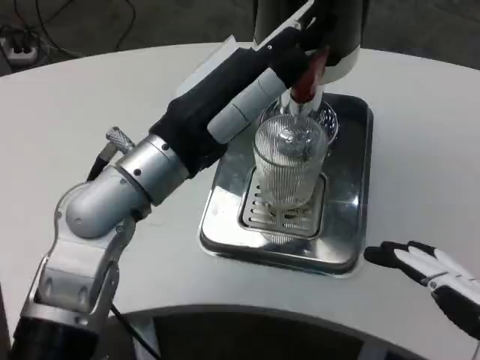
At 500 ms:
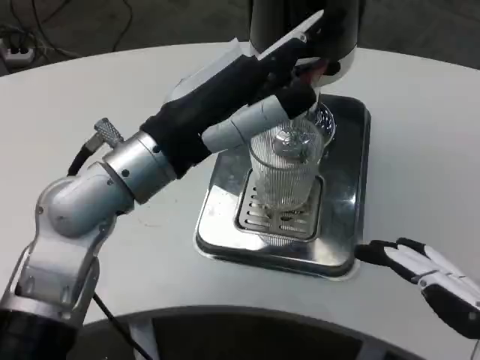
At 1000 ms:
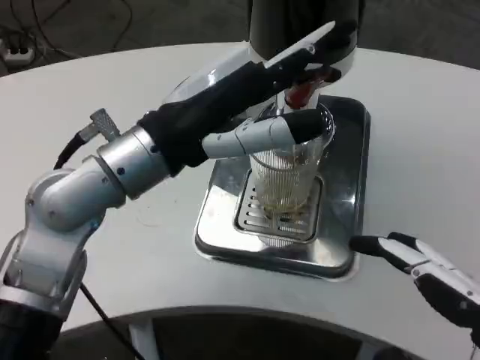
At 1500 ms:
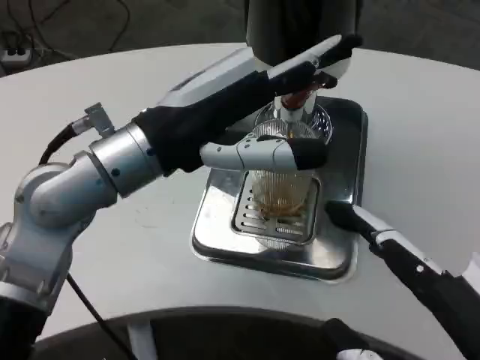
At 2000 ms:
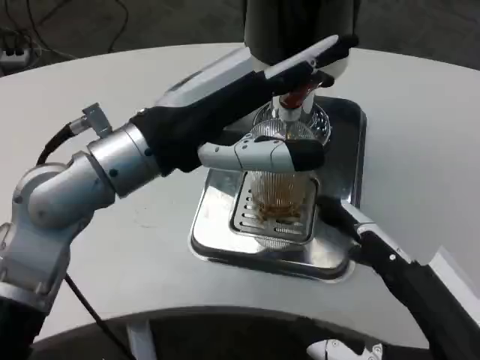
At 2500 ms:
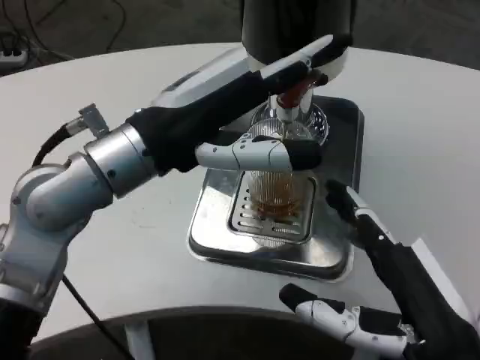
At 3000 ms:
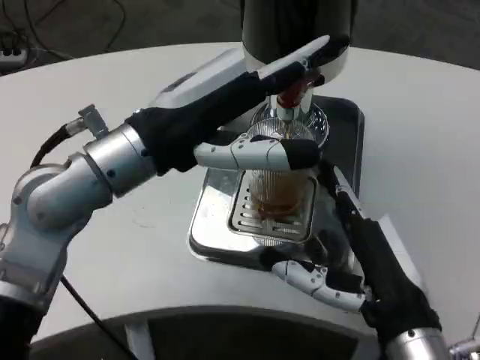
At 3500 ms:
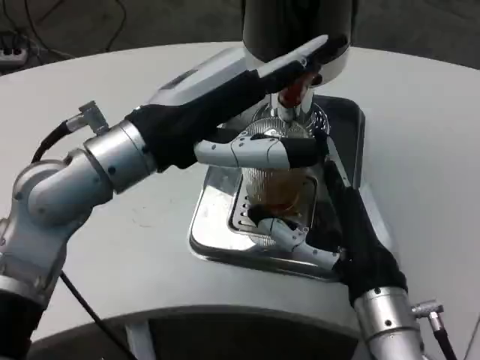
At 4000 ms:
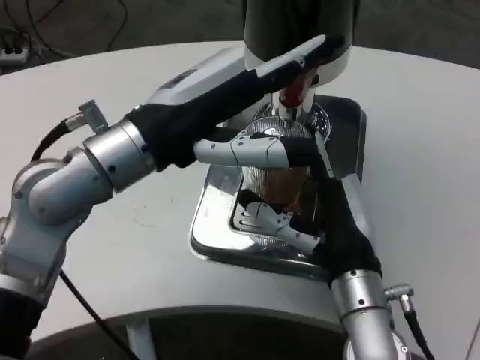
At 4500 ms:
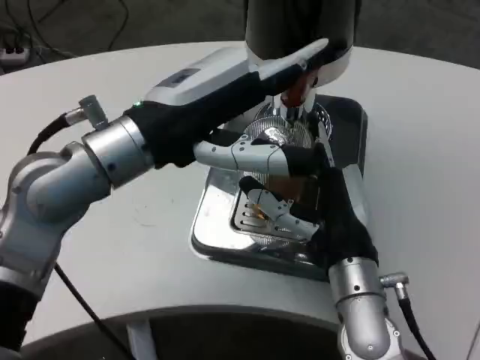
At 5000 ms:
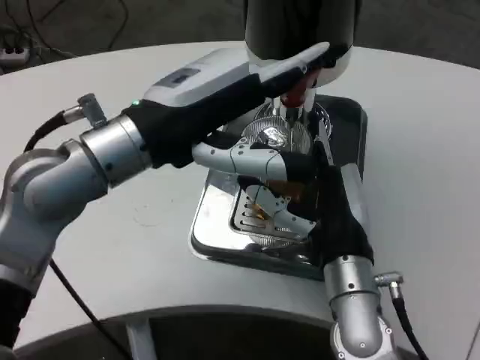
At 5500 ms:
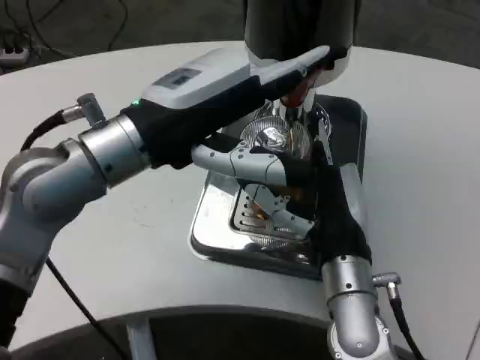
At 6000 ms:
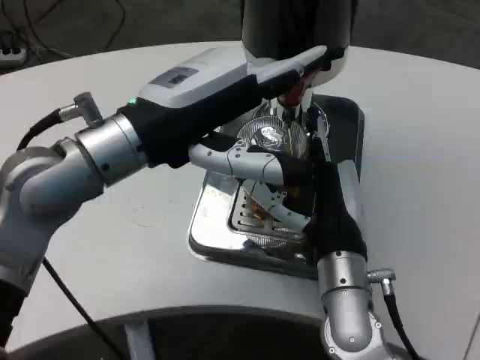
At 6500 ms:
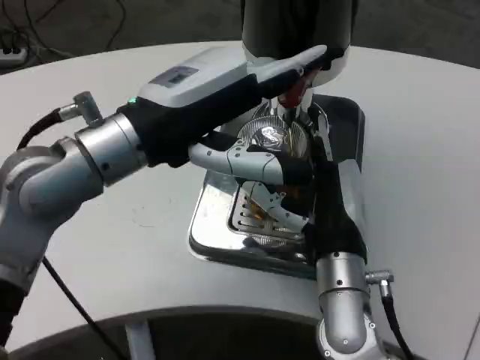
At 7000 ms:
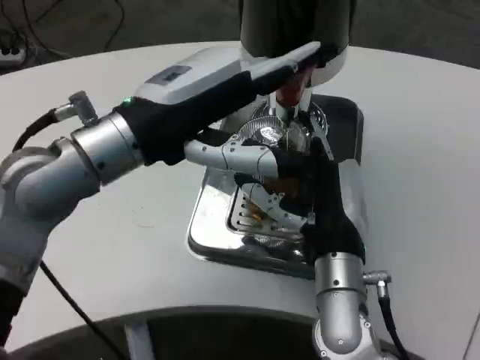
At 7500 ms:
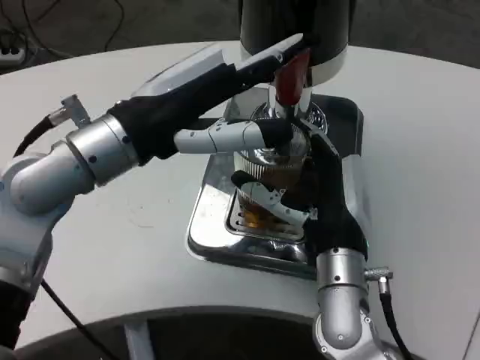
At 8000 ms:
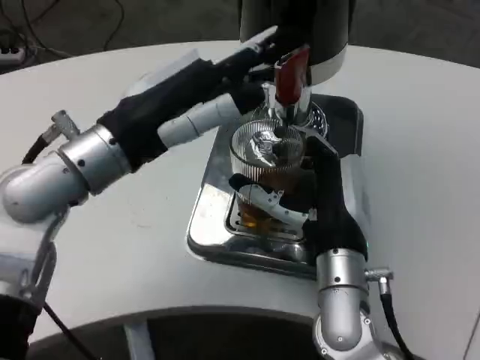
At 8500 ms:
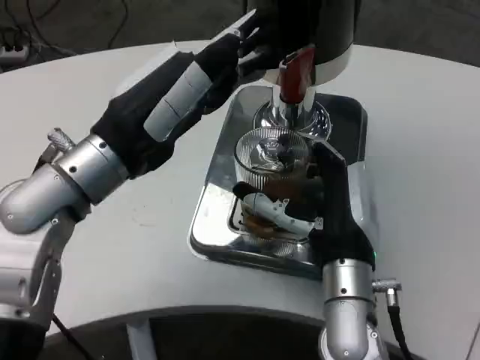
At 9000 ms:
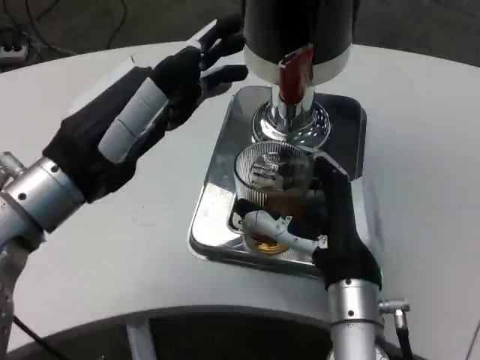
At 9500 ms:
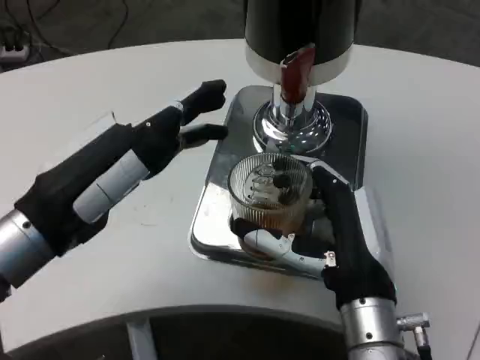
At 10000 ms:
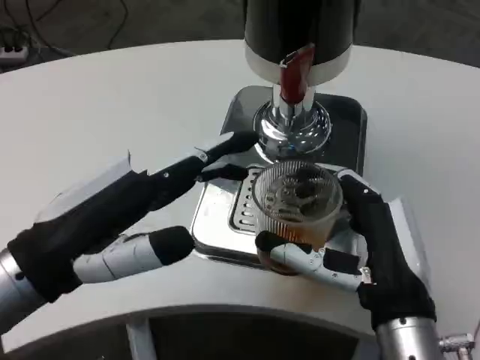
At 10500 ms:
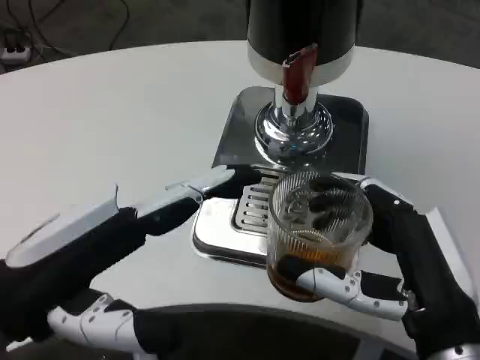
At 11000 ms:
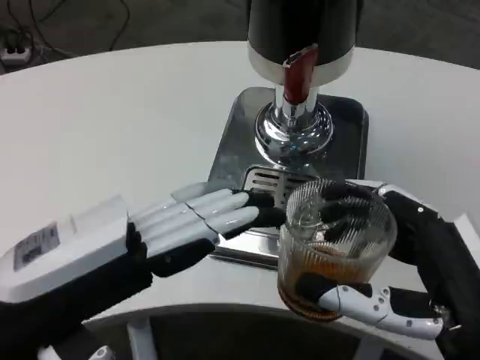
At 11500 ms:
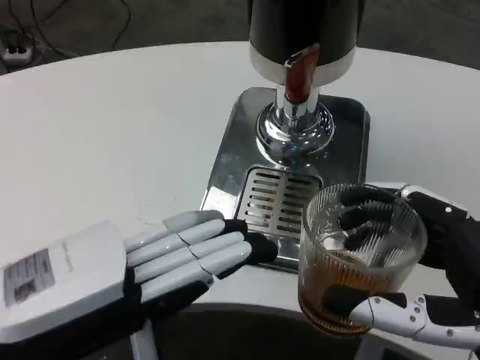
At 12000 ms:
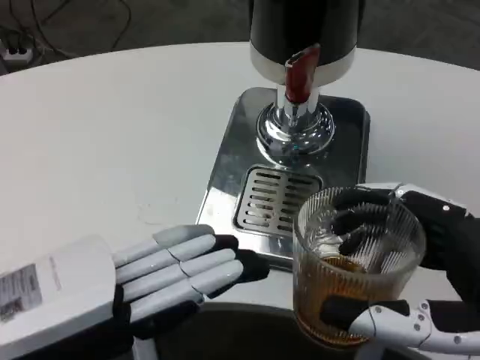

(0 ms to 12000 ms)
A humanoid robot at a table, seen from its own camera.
Task of the whole recording: Grasp the cup under the faucet to collect the drink, then remove the cup.
0 ms - 2000 ms: The right hand moves forward and to the left, some 10 cm.
2000 ms - 4000 ms: The right hand shifts about 20 cm forward and to the left.
8000 ms - 10000 ms: The two hands go about 10 cm backward.
10000 ms - 12000 ms: The left hand shifts about 5 cm backward; the right hand travels backward, to the right and upward by roughly 15 cm.

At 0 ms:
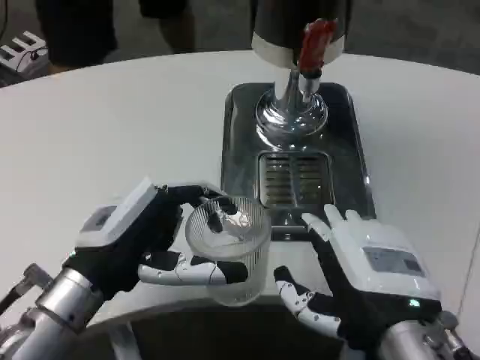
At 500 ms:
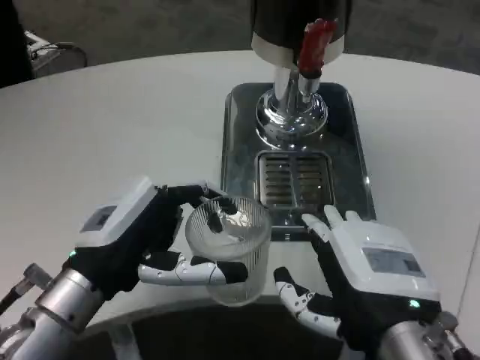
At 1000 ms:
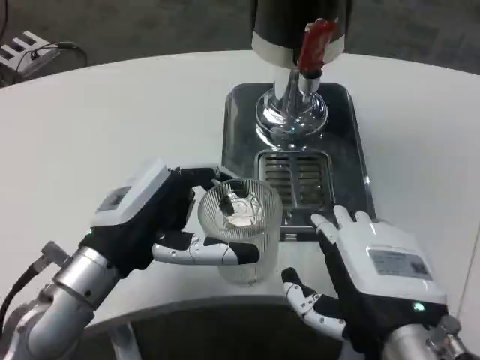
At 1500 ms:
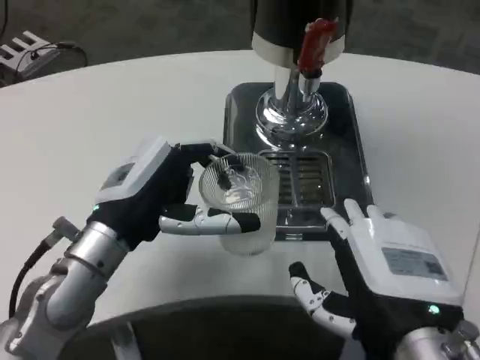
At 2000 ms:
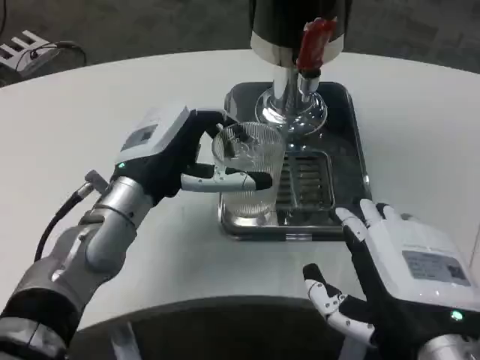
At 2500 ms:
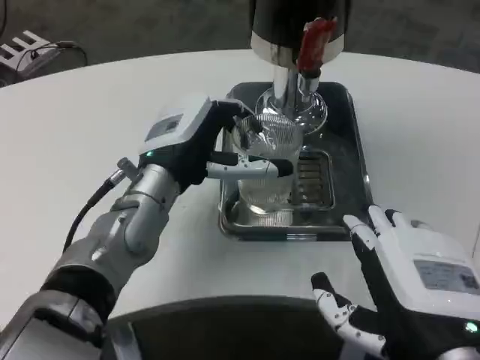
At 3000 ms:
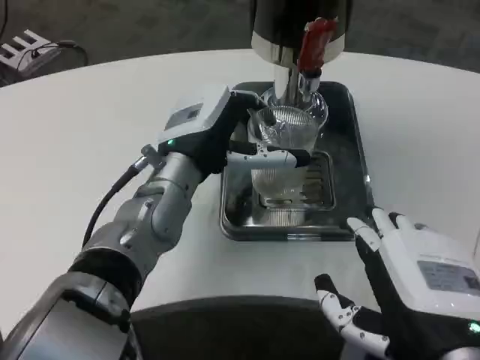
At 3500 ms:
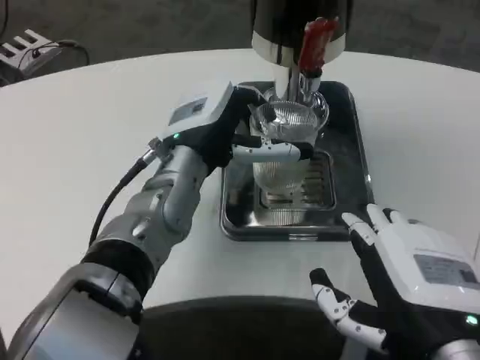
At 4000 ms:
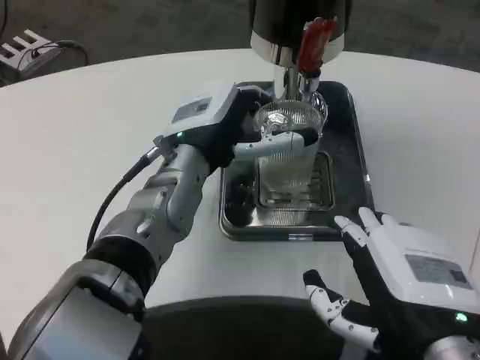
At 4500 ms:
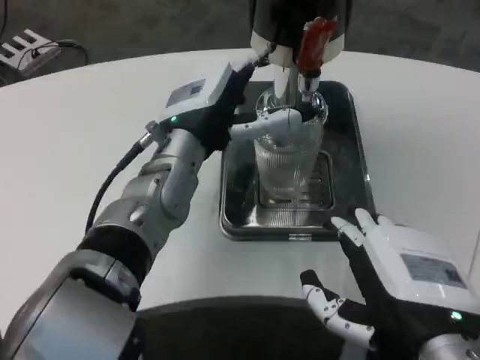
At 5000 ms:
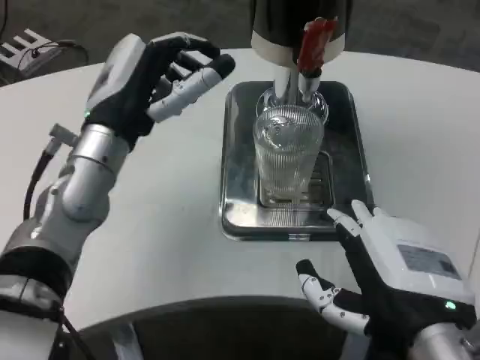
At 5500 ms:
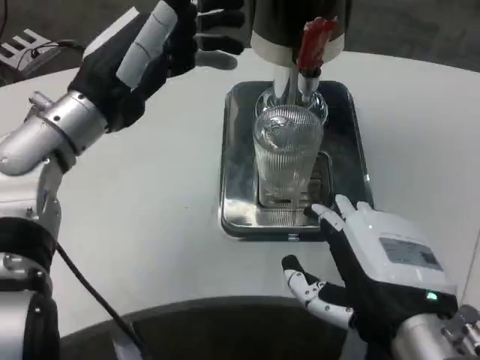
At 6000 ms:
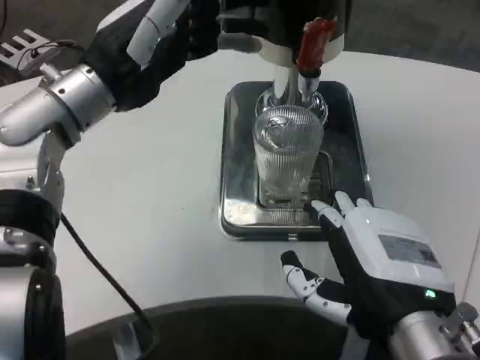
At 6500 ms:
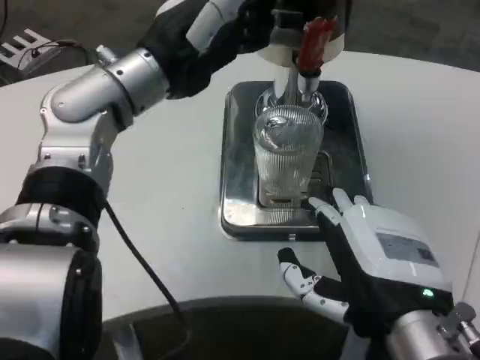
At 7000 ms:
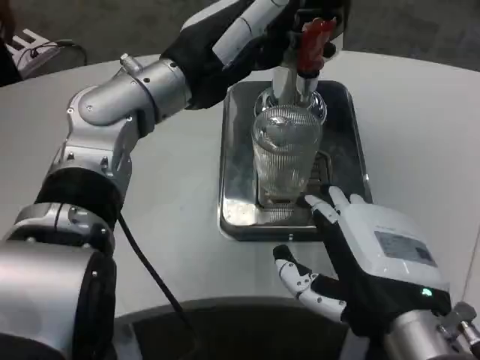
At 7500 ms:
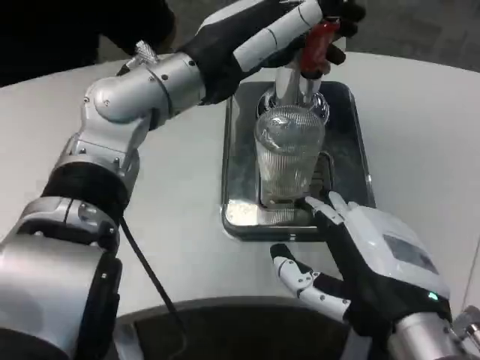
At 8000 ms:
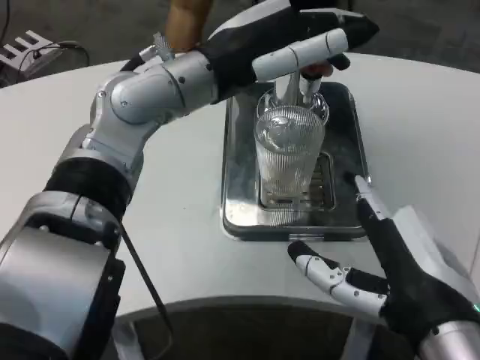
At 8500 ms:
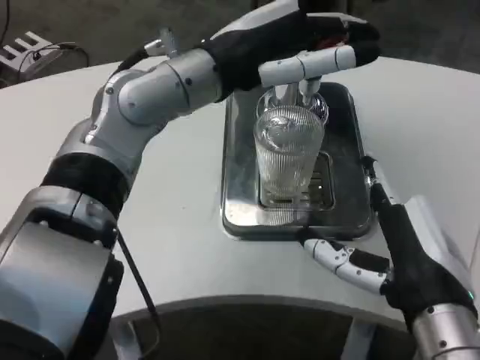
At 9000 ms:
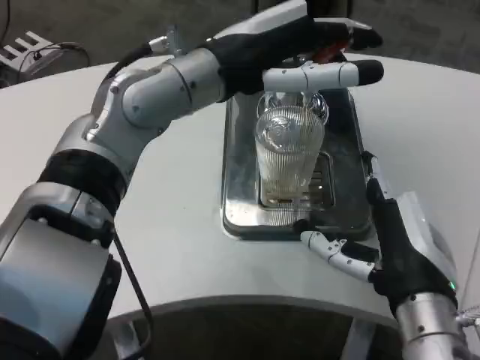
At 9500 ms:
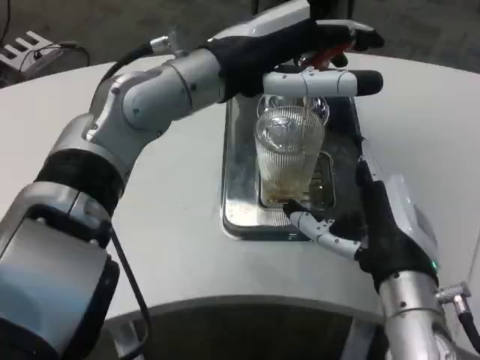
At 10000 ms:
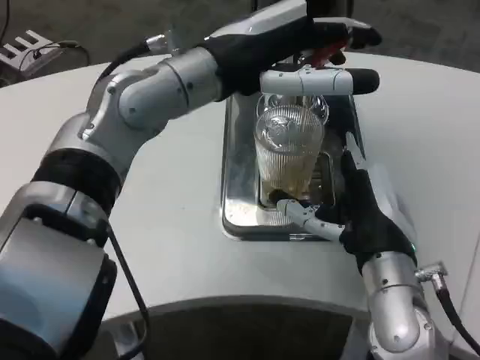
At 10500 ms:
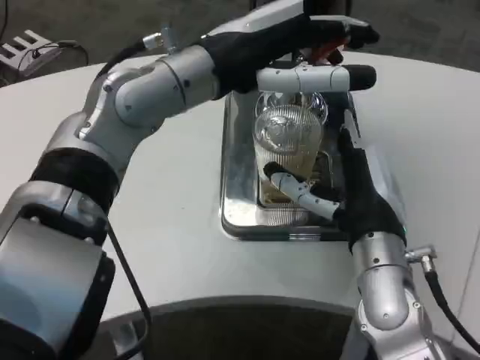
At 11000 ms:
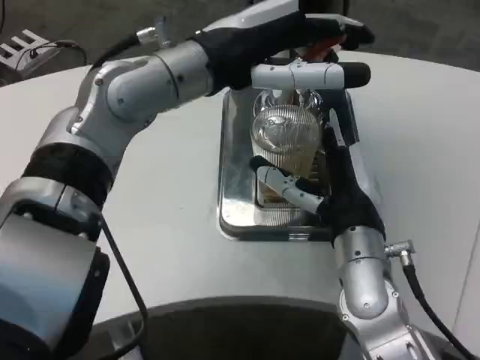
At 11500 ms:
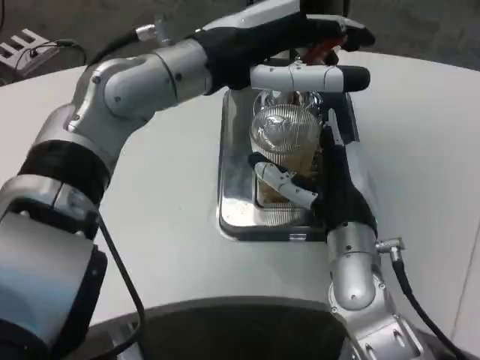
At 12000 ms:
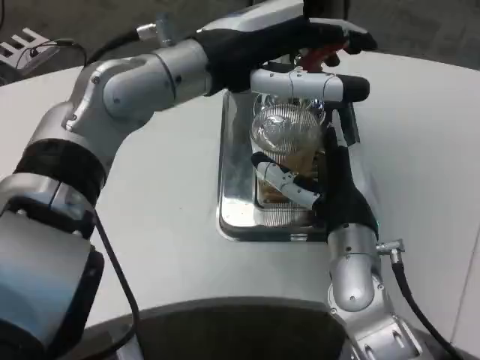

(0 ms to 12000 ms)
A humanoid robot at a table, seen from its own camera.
Task of the whole recording: Grasp the cup under the faucet to collect the drink, then remove the cup.
0 ms - 2000 ms: The left hand travels forward by about 10 cm.
2000 ms - 4000 ms: The left hand travels to the right by some 5 cm.
4000 ms - 6000 ms: The left hand heads to the left and upward, covering roughly 15 cm.
6000 ms - 8000 ms: The left hand travels to the right by about 10 cm.
8000 ms - 10000 ms: The right hand heads forward, covering approximately 10 cm.
10000 ms - 12000 ms: The right hand changes place by about 5 cm.

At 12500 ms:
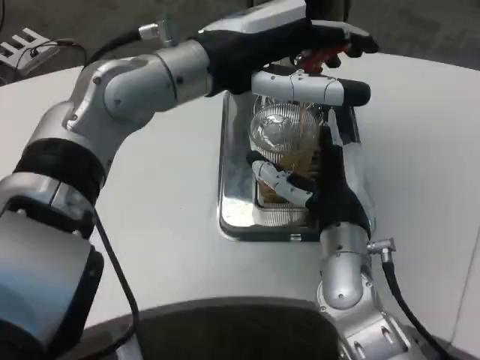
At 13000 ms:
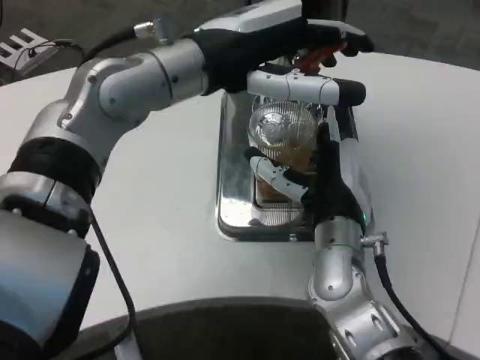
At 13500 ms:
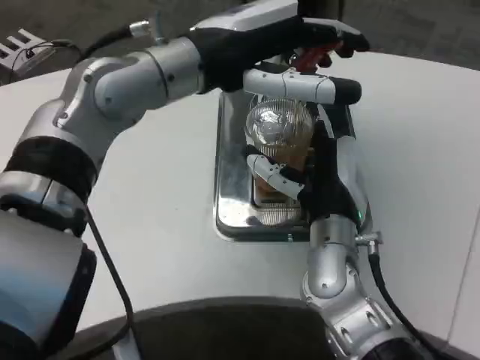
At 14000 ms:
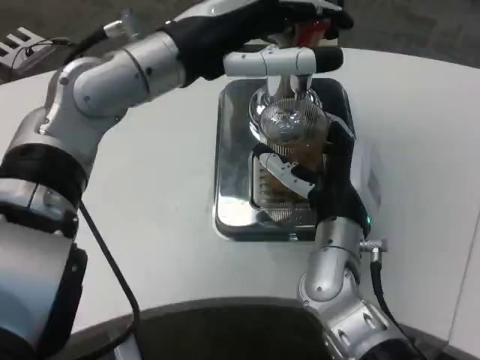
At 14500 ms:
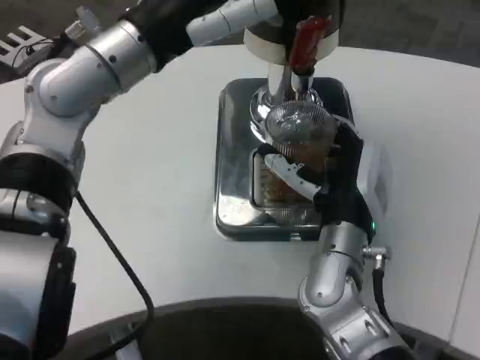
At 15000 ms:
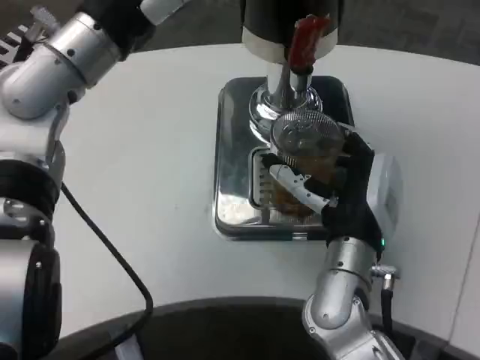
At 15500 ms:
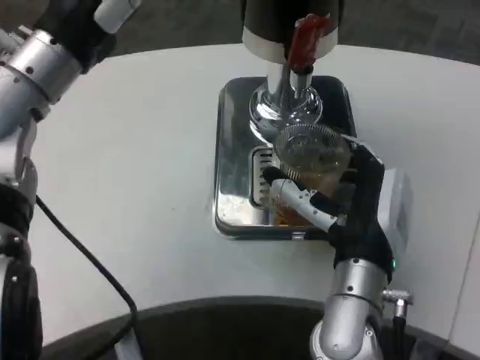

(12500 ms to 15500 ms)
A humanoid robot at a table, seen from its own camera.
Task of the whole recording: Grasp the cup under the faucet to collect the drink, then remove the cup.
14000 ms - 15500 ms: The right hand is displaced backward by roughly 5 cm. Meanwhile the left hand shifts approximately 10 cm to the left.
